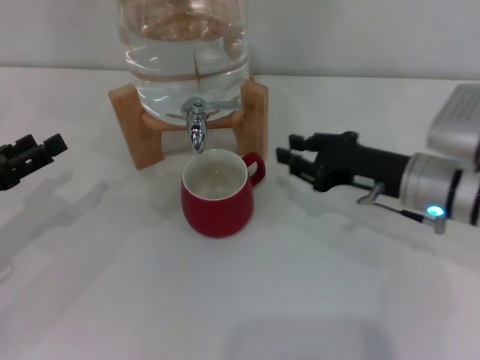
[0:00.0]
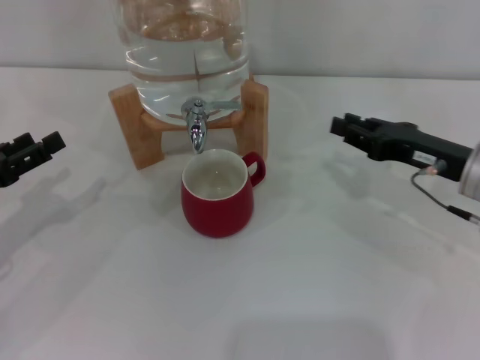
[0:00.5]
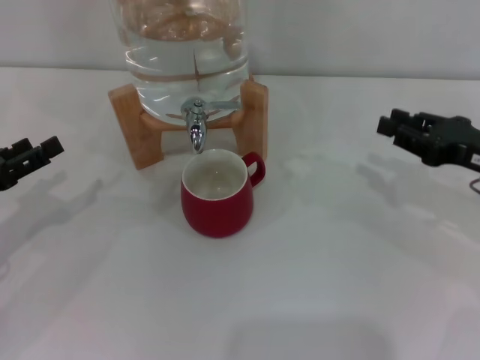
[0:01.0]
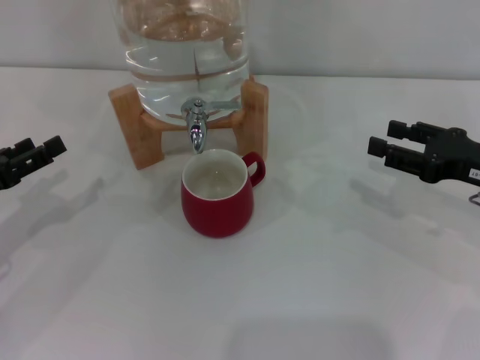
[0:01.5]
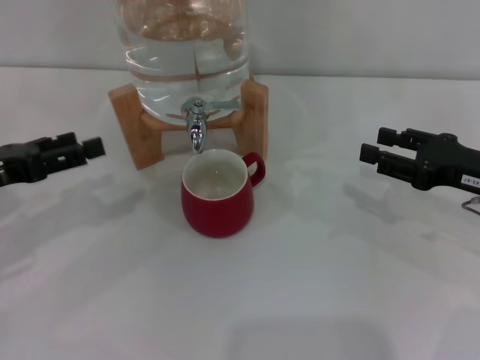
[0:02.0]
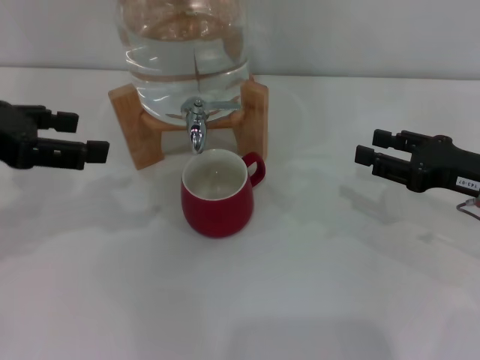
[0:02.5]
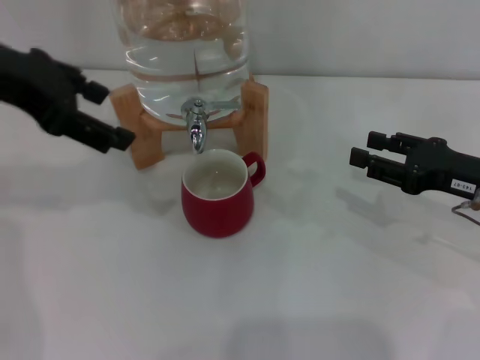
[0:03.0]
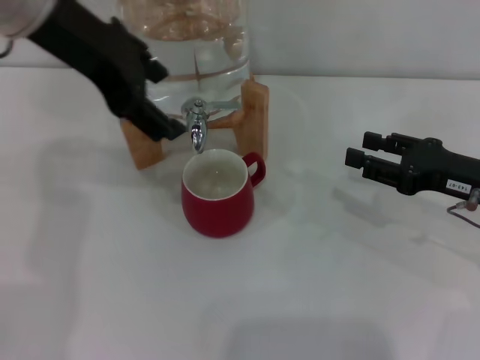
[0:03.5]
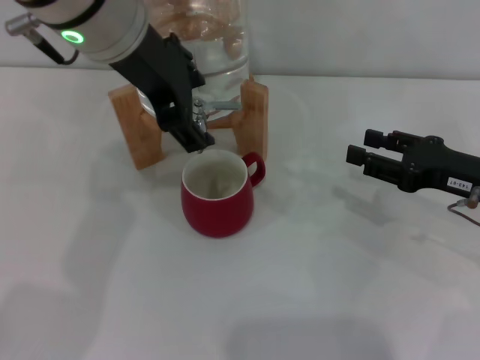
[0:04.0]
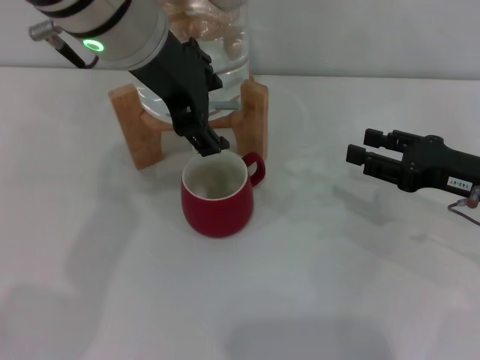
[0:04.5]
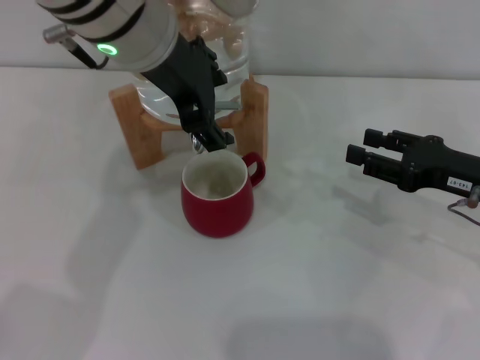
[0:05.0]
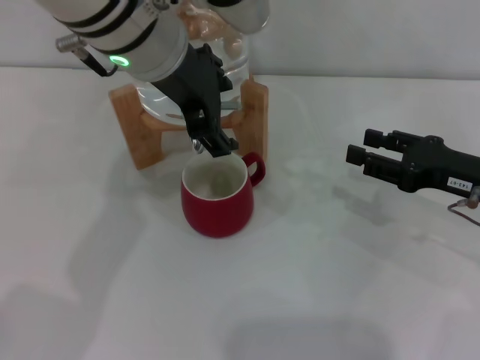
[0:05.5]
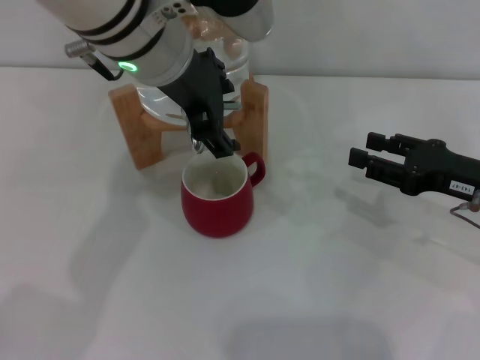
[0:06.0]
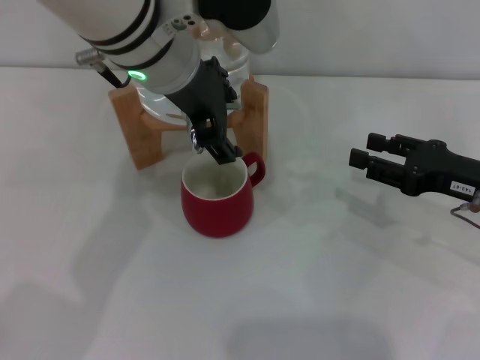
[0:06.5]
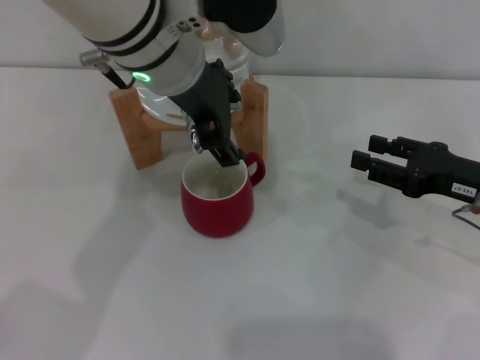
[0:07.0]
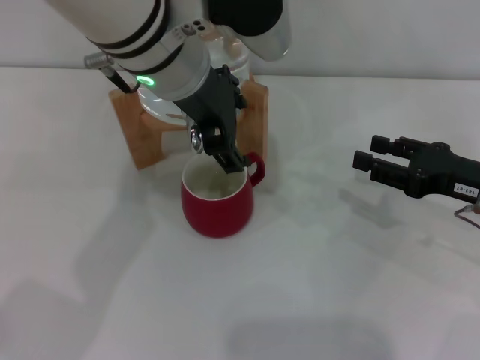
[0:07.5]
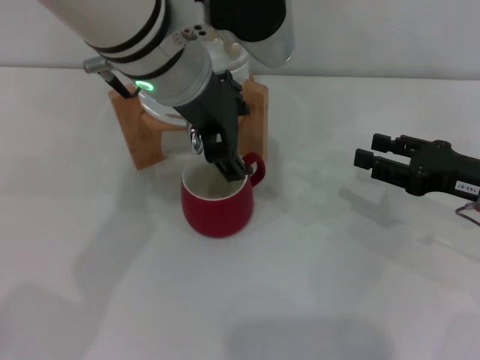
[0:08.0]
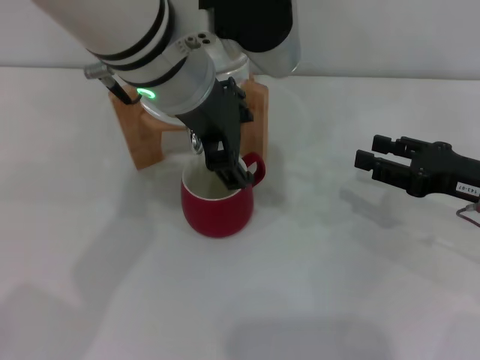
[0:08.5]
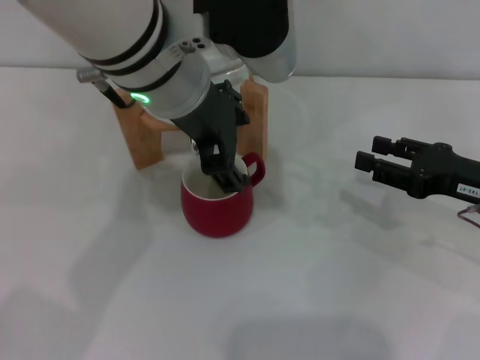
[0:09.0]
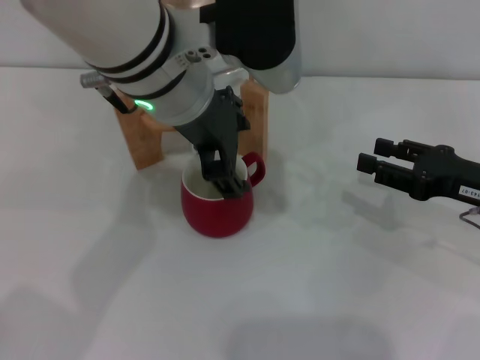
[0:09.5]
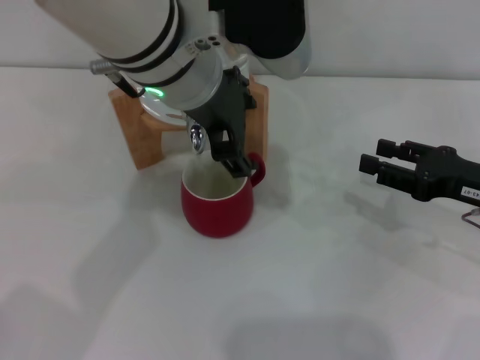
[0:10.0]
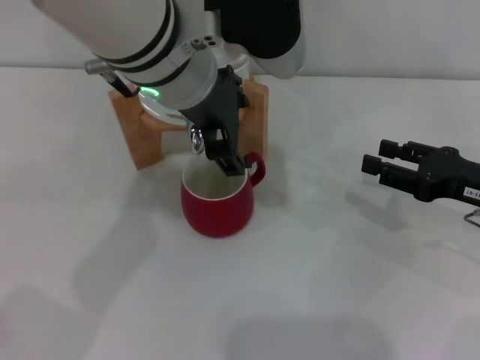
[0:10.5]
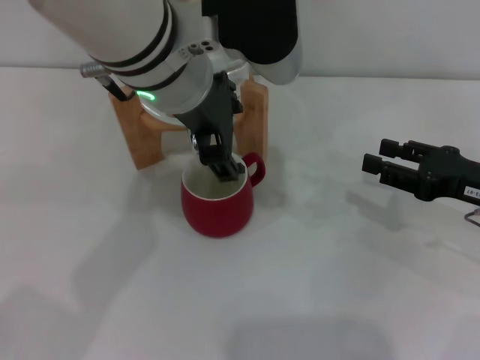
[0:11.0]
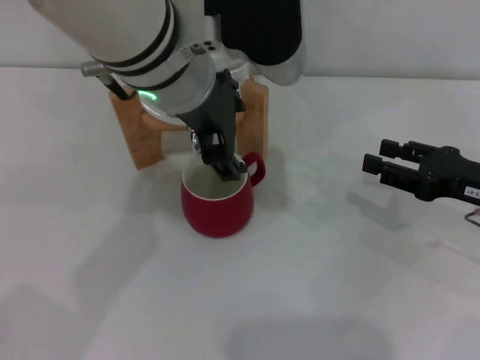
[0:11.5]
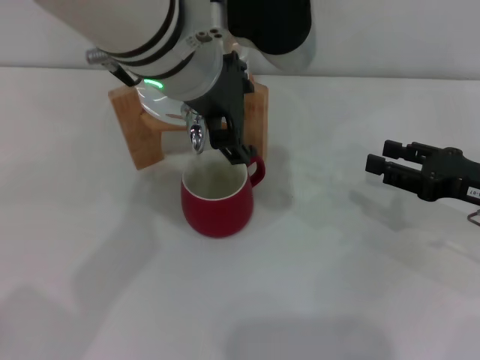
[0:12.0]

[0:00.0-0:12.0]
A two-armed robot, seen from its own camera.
Task of the whole recording: the right gripper pick up the red cup and place it horizontally under the faucet, the left gripper turn on the faucet to fill the cup, and then turn off the faucet.
0:00.0 to 0:02.0: The left gripper moves some 5 cm; the right gripper travels to the right by some 10 cm, and opens up.
0:02.0 to 0:04.0: The left gripper travels to the right and upward by approximately 25 cm.
0:04.0 to 0:08.0: The grippers make only small movements.
0:08.0 to 0:10.0: The grippers move only a little.
0:10.0 to 0:12.0: The two grippers keep their place.

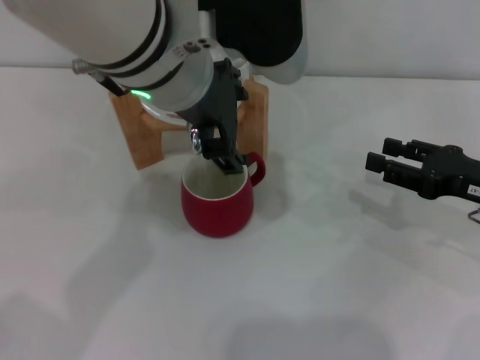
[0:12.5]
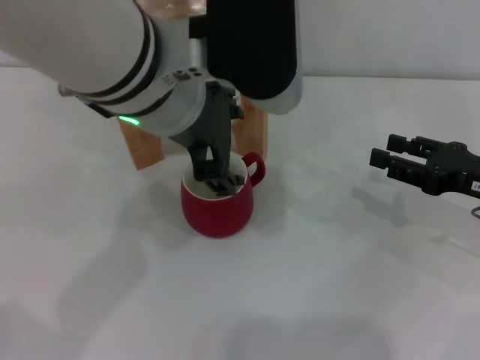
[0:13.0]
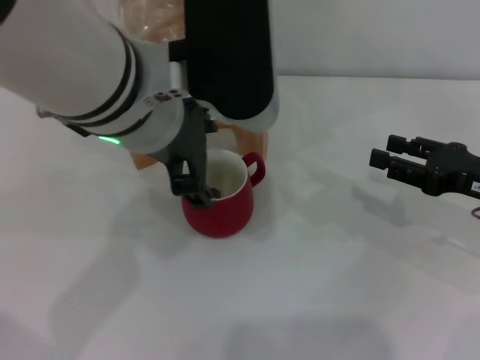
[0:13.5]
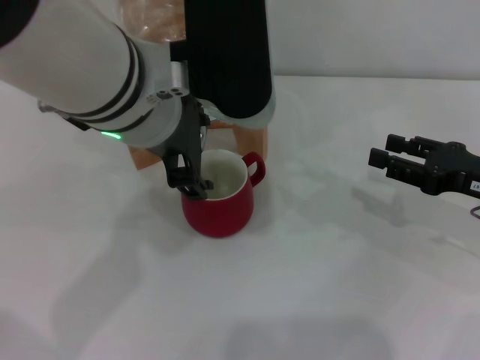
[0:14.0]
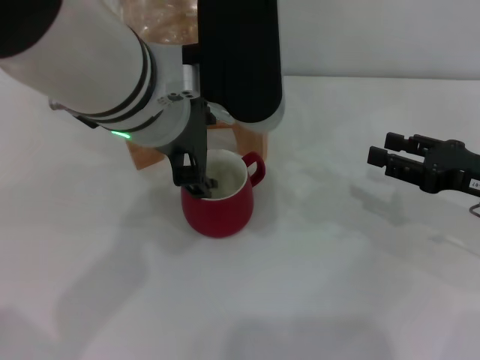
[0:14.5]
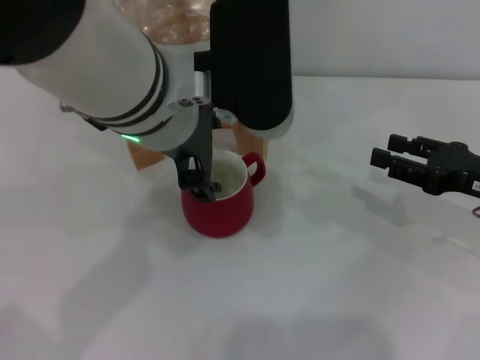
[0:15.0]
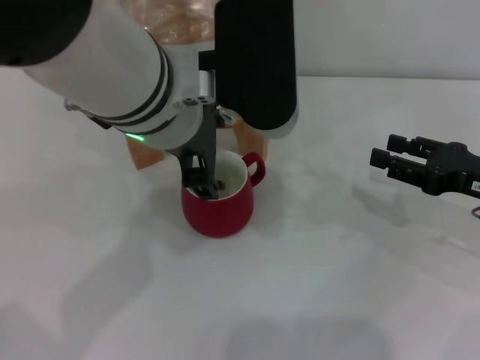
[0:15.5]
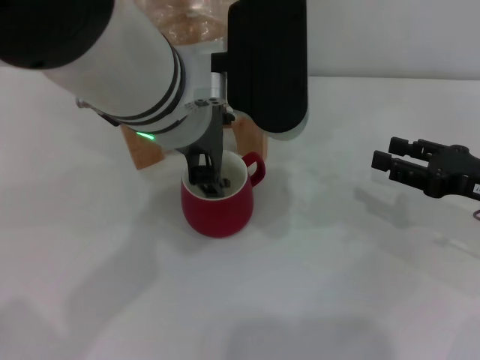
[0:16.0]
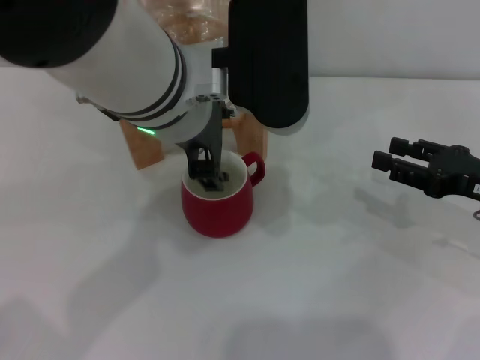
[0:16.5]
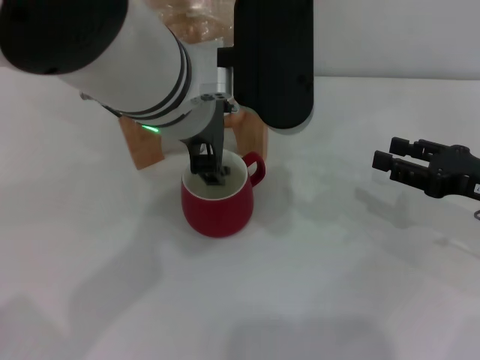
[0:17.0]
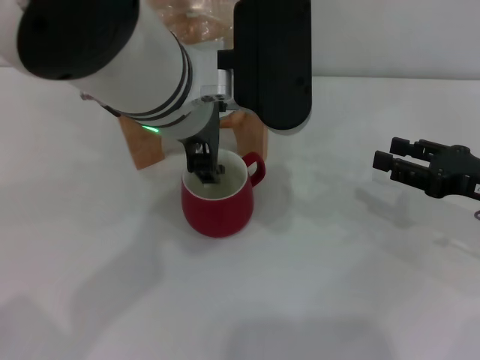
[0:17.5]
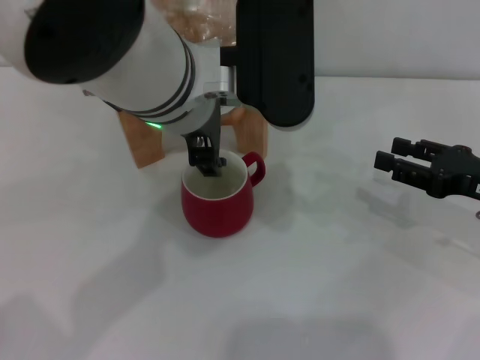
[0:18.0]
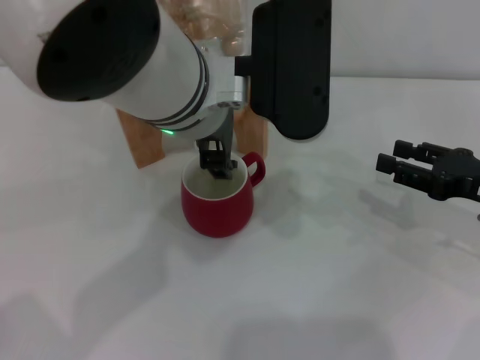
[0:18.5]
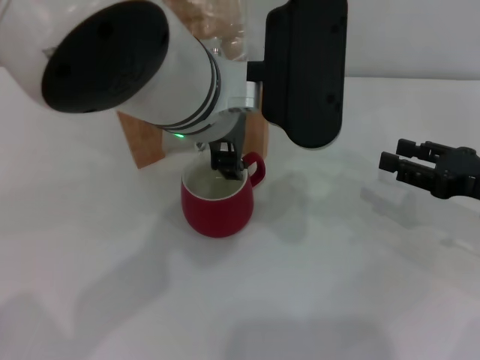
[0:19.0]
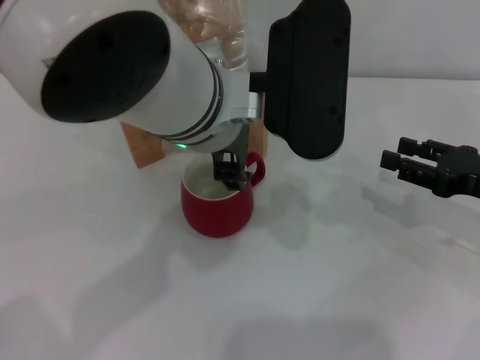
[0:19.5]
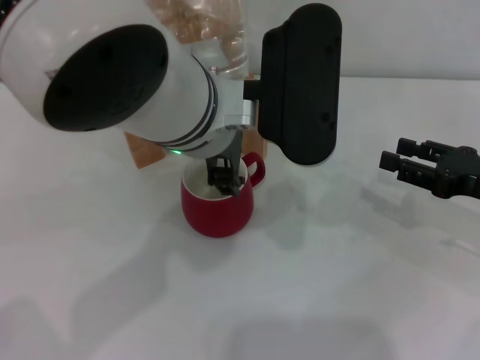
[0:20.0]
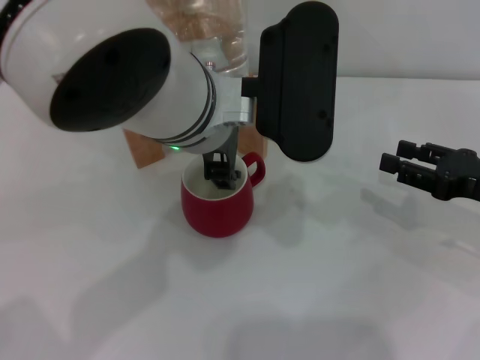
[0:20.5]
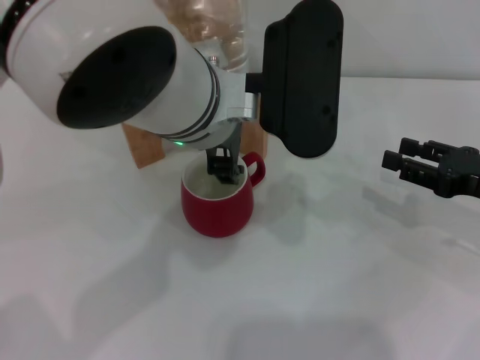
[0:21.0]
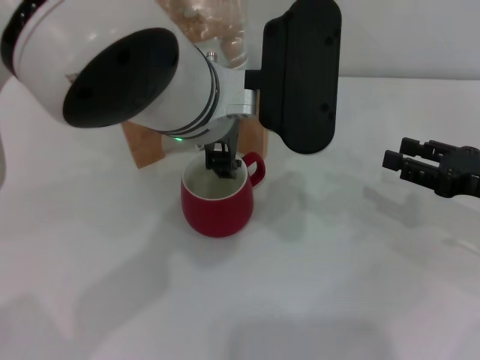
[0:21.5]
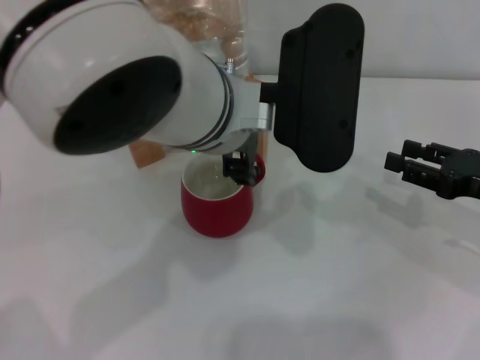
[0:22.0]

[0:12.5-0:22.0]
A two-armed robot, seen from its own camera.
Task of the whole recording: the right gripper pick up the red cup and place it horizontally under the faucet, the left gripper turn on the faucet to fill the cup, and then turn off the faucet.
0:12.5 to 0:16.5: There are only small adjustments of the grippers.
0:16.5 to 0:18.0: Both grippers stay about where they are.
0:18.0 to 0:20.0: The grippers stay close to where they were, moving slightly.
0:20.0 to 0:22.0: Neither gripper changes place.

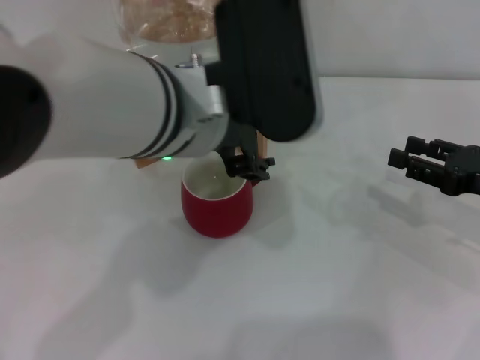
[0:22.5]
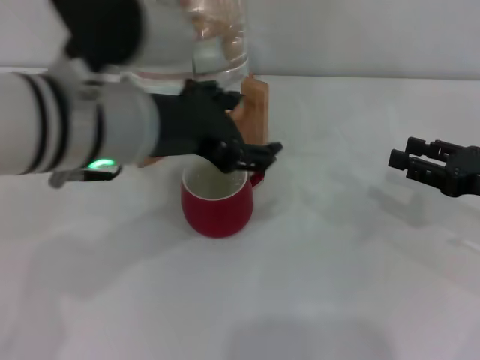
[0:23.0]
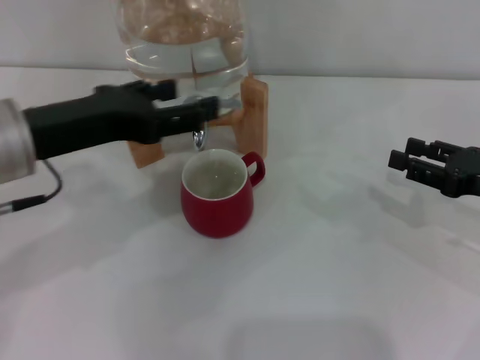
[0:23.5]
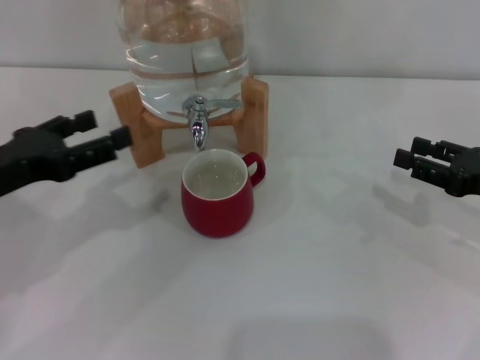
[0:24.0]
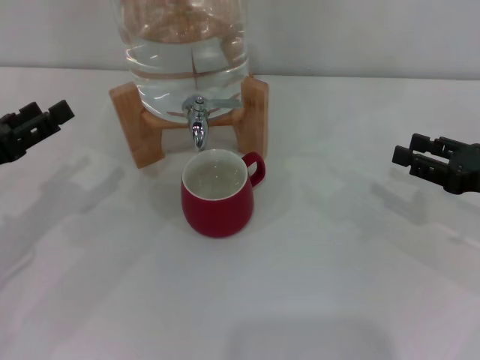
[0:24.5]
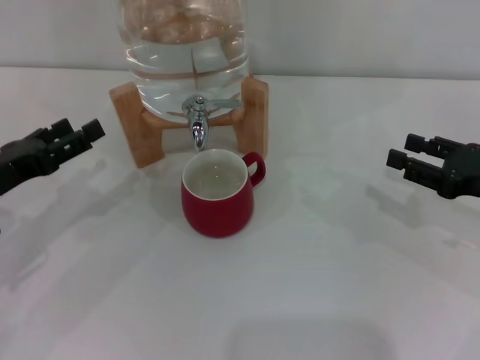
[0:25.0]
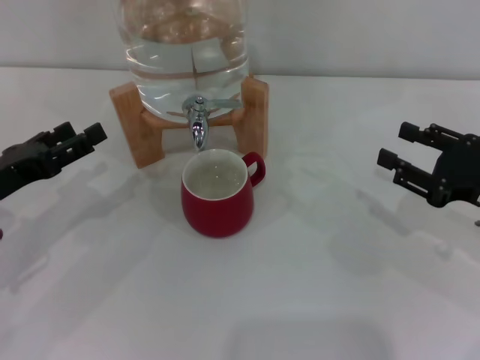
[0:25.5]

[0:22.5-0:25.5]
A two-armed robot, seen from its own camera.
Task of the whole recording: the right gripper pick up the red cup and place it horizontally under the faucet, the left gripper turn on the faucet to fill the cup, and then turn off the faucet.
0:22.5 to 0:24.0: The left gripper moves to the left and downward, some 25 cm.
0:24.0 to 0:25.5: The left gripper goes about 5 cm downward.

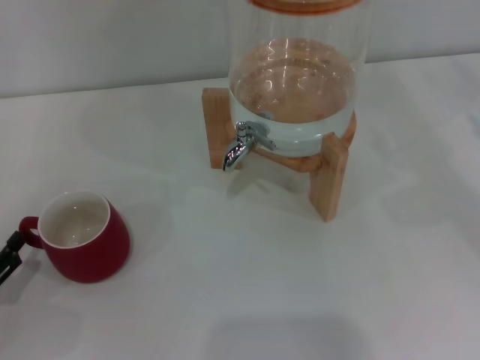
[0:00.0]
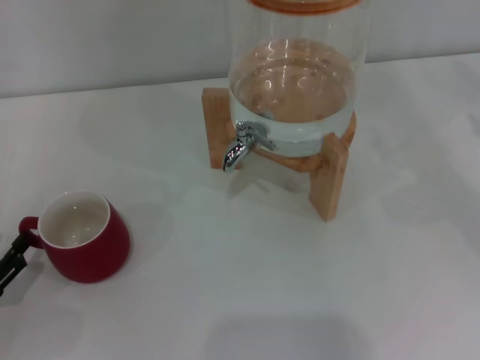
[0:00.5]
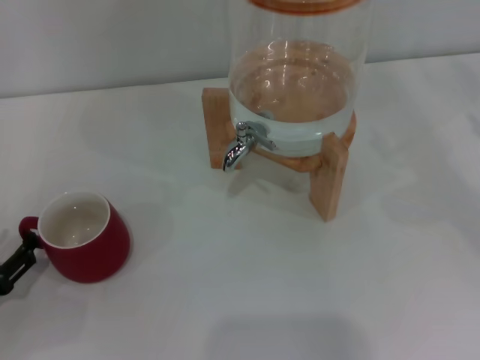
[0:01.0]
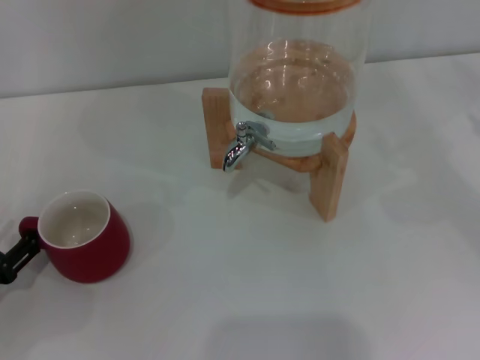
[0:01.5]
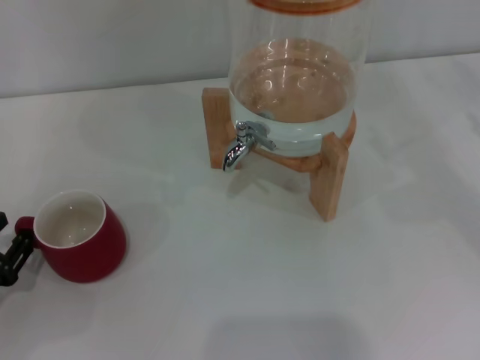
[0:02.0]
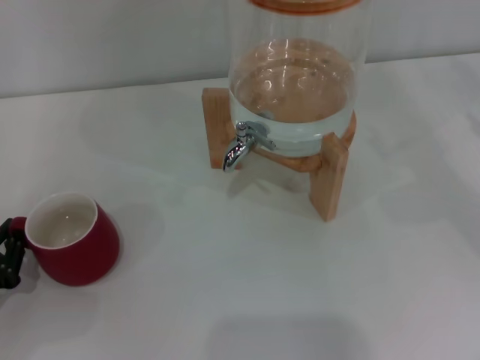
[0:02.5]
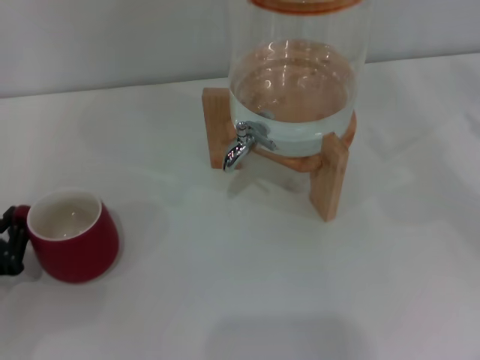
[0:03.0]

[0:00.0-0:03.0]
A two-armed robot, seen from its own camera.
Task of the whole recording: the left gripper pick up the red cup and place it horizontally under the faucet, the right gripper turn on the faucet to fill the cup, and then turn off the faucet.
0:01.5 to 0:03.0: The left gripper closes.
